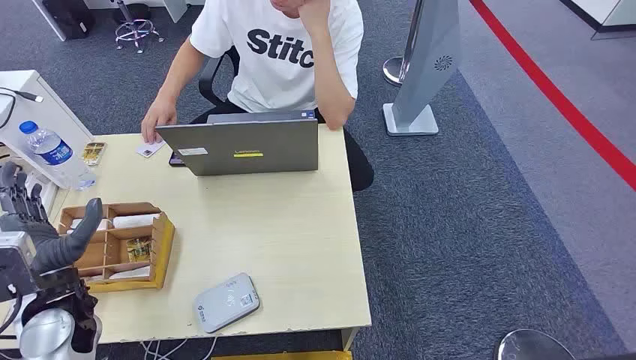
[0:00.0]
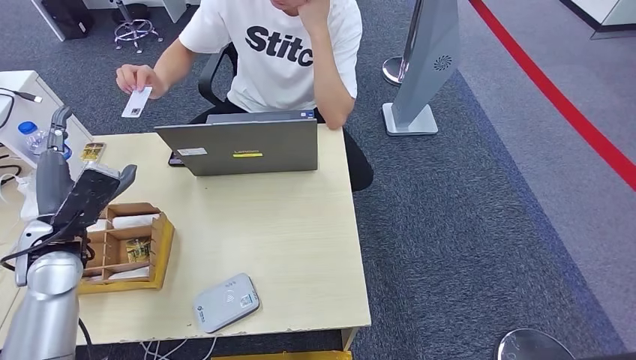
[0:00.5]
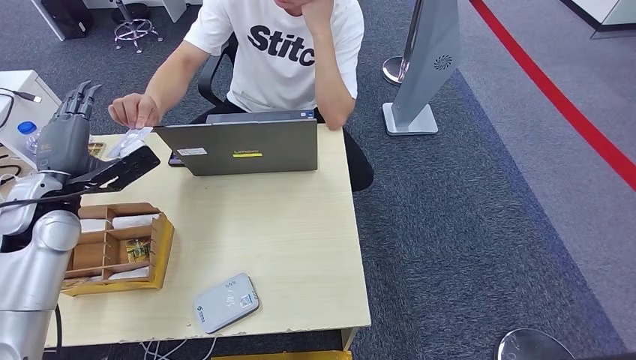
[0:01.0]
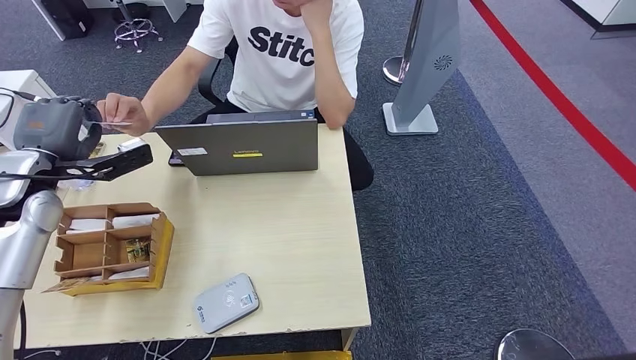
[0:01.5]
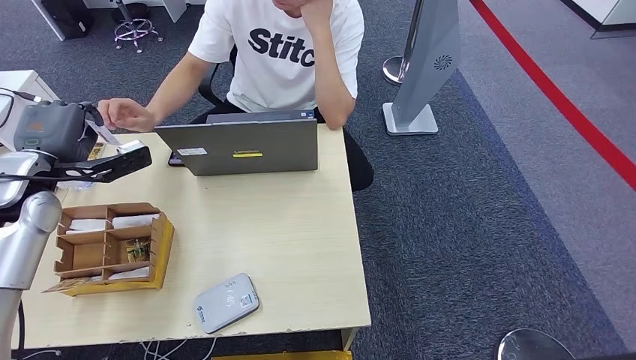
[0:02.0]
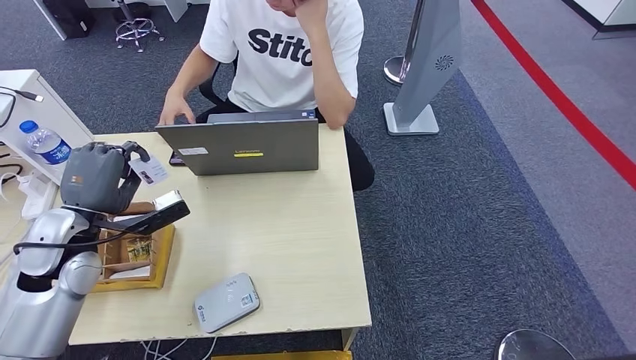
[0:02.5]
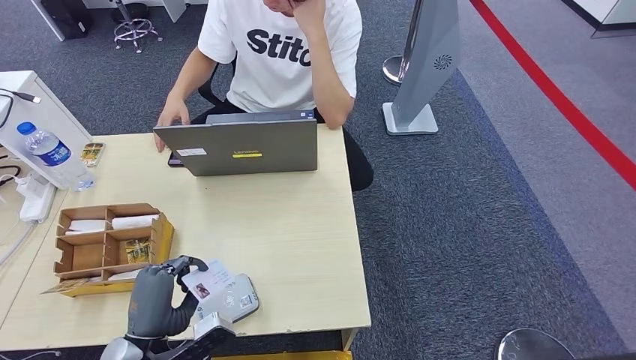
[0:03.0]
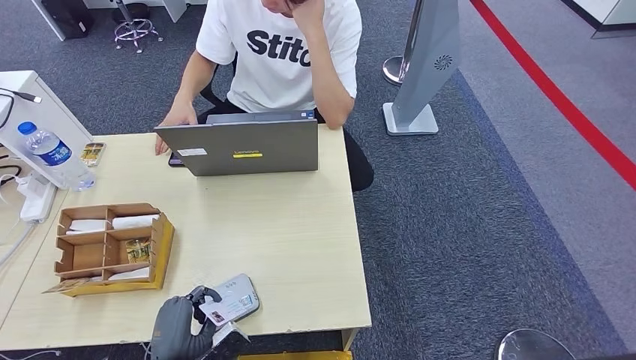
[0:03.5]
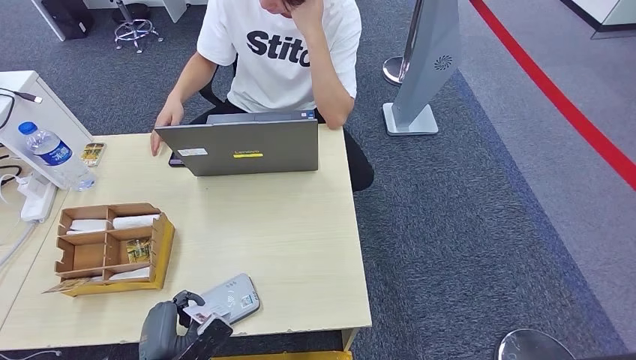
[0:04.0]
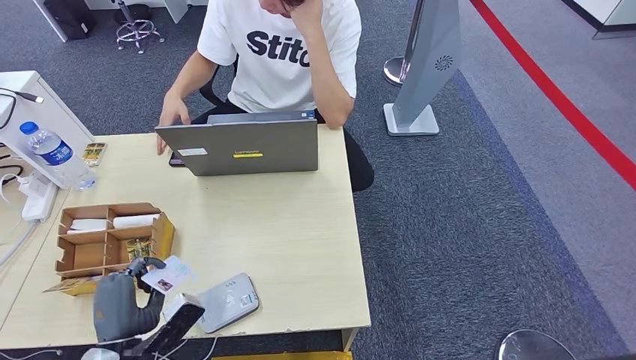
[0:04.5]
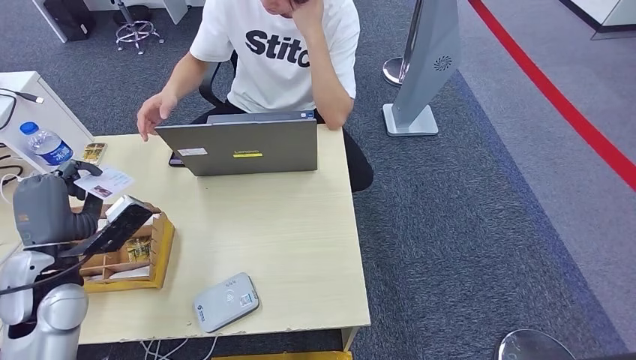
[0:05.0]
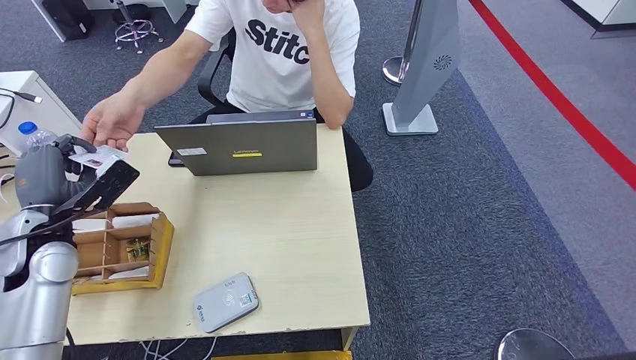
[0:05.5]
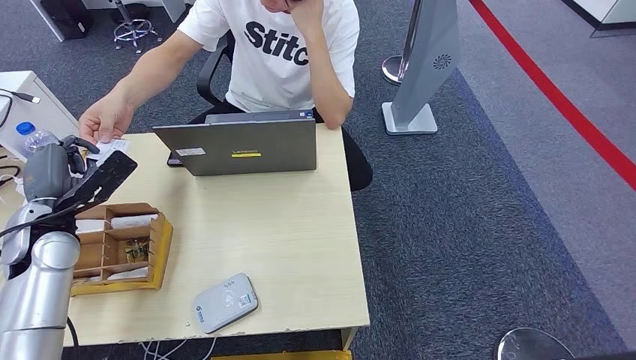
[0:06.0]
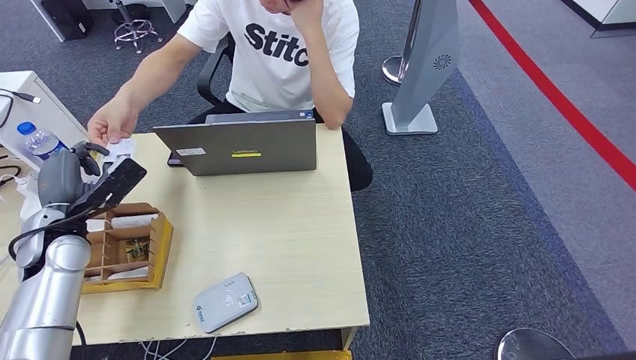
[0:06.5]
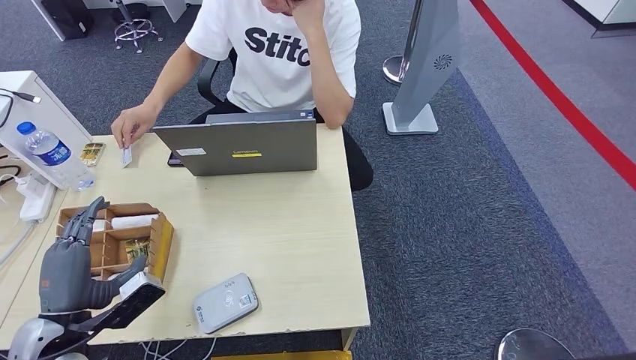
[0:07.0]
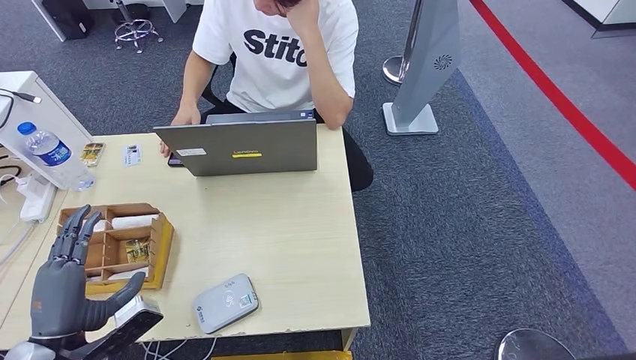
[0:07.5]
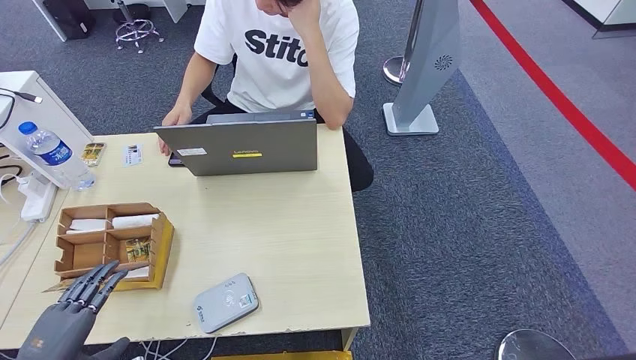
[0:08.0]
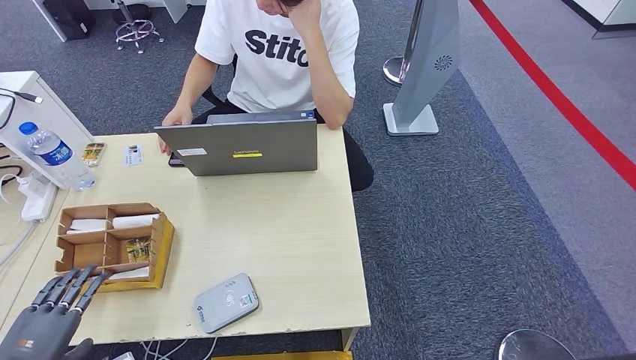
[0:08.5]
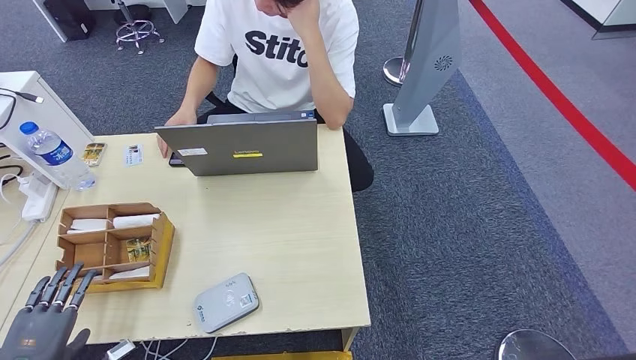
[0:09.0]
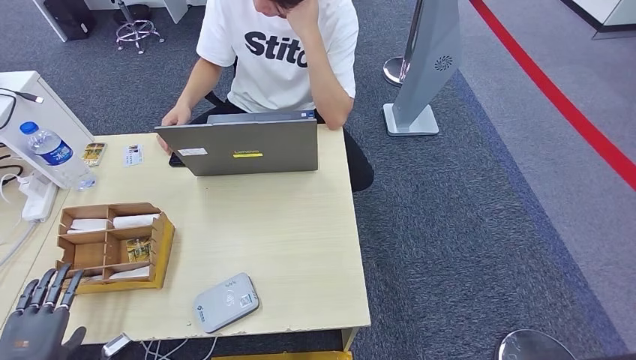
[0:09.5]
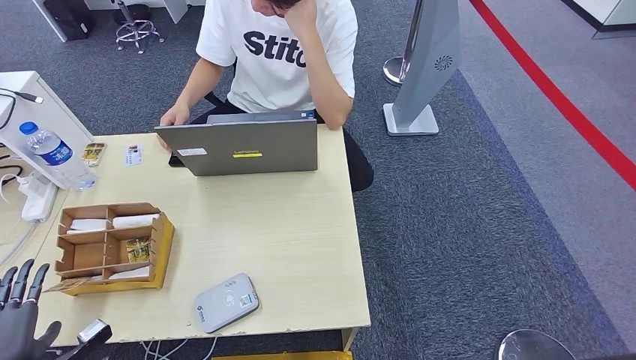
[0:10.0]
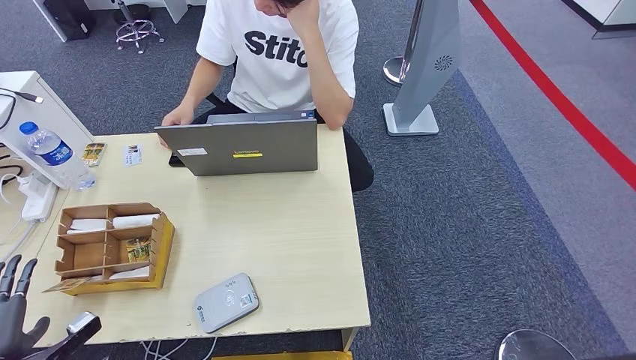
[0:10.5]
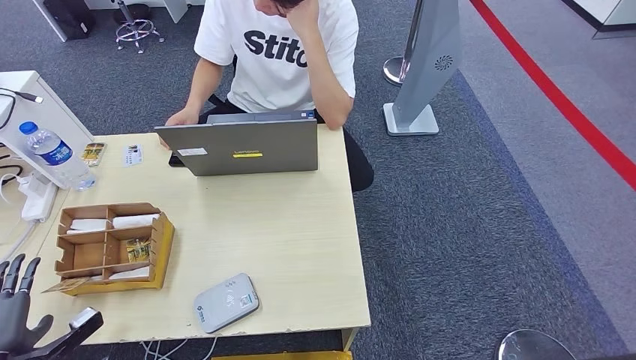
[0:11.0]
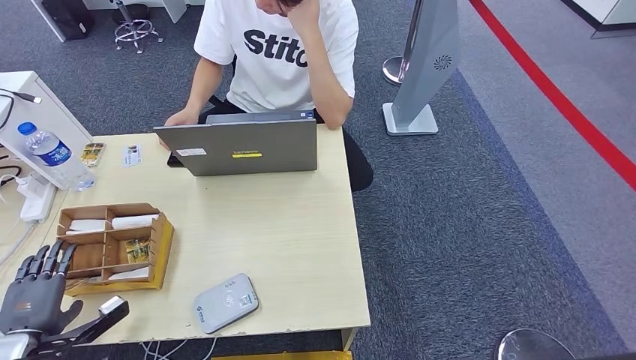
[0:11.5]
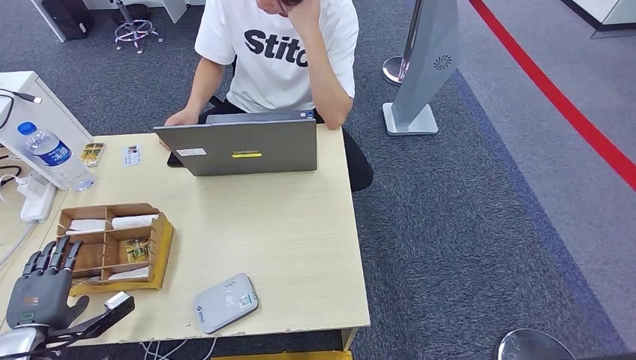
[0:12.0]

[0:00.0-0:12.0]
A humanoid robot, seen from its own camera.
Step, 0:00.0 to 0:02.5: Take the ID card from the person's hand.
Step, 0:03.0 to 0:05.0: Place the ID card on the card reader.
Step, 0:05.5 to 0:07.0: Hand the ID card to the person.
0:02.0 to 0:04.0: The left hand heads backward, downward and to the right, covering roughly 40 cm.
0:04.0 to 0:06.0: The left hand goes some 30 cm forward, upward and to the left.
0:06.0 to 0:08.0: The left hand is displaced backward by approximately 25 cm.
0:08.0 to 0:10.0: The left hand shifts some 10 cm to the left and downward.
0:10.0 to 0:12.0: The left hand heads forward, covering roughly 5 cm.

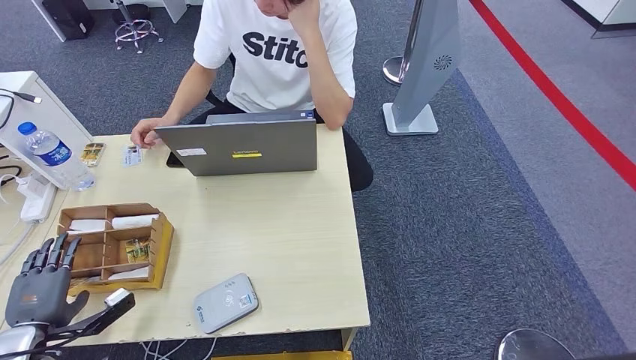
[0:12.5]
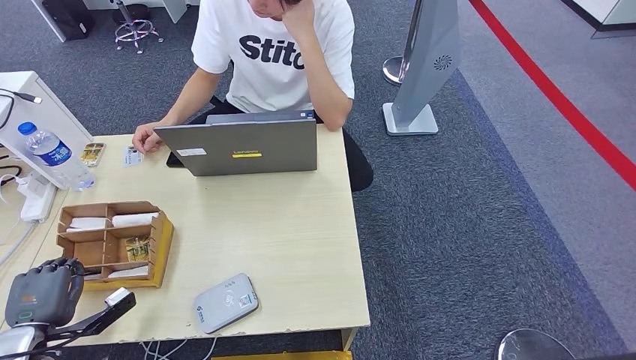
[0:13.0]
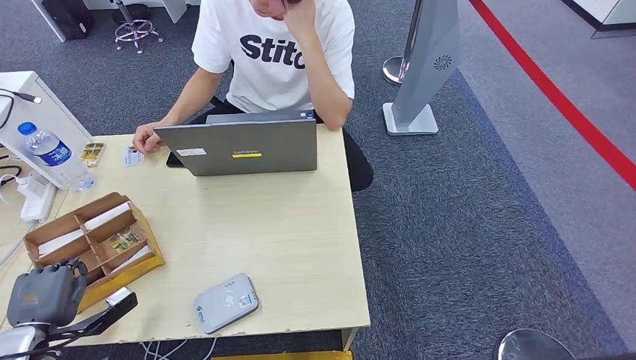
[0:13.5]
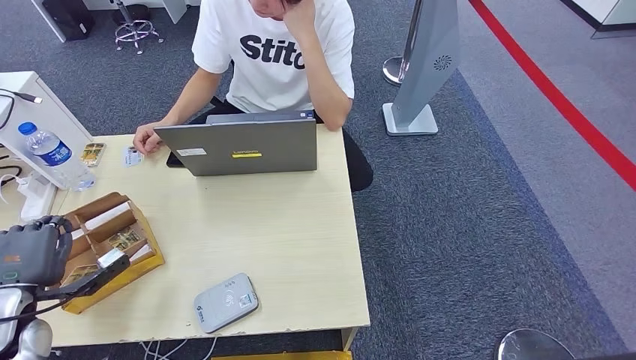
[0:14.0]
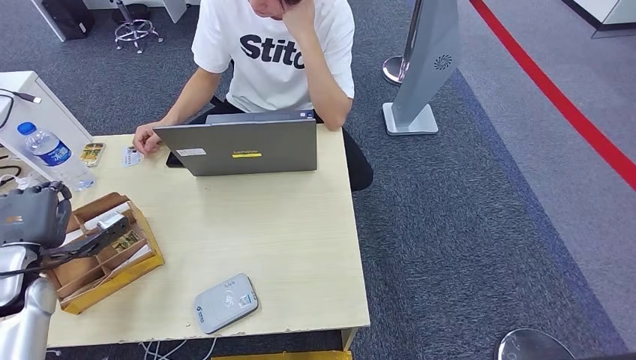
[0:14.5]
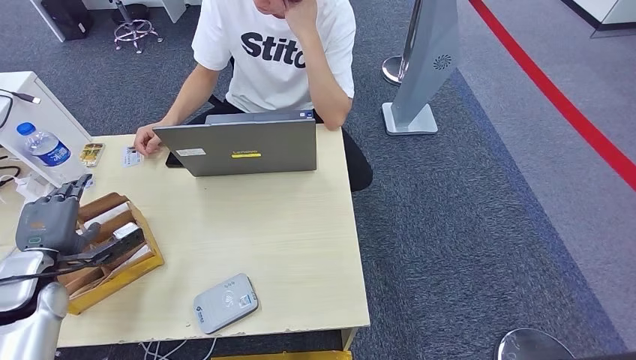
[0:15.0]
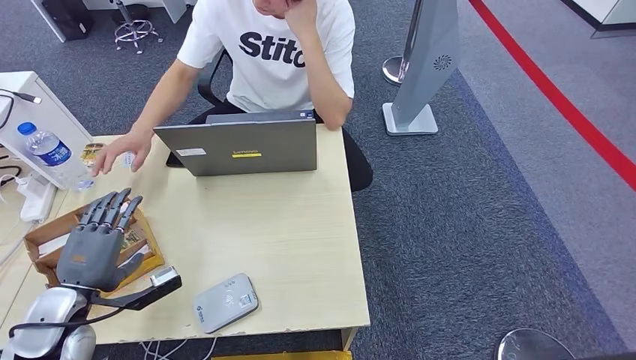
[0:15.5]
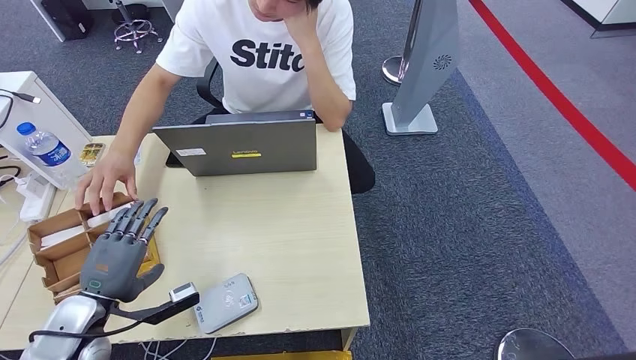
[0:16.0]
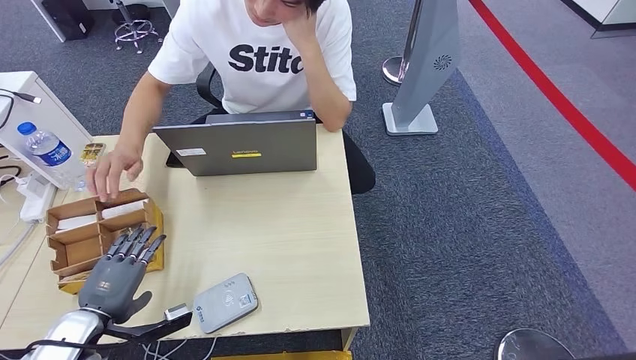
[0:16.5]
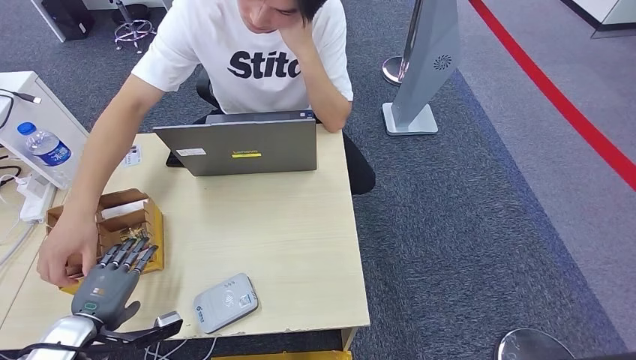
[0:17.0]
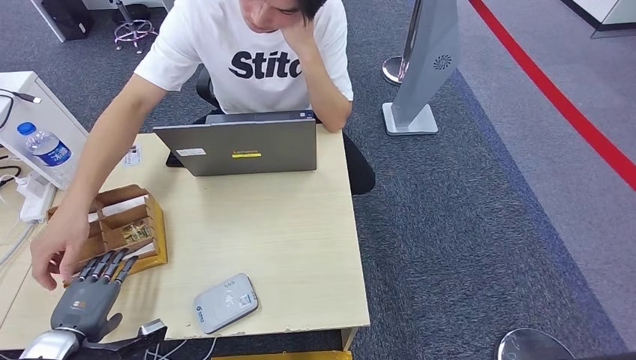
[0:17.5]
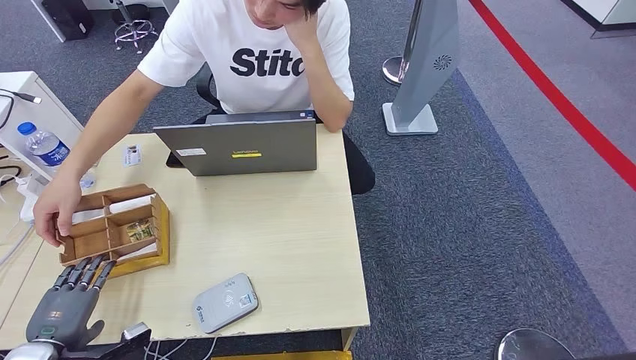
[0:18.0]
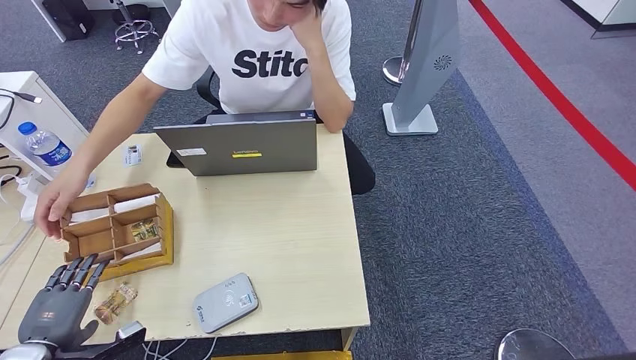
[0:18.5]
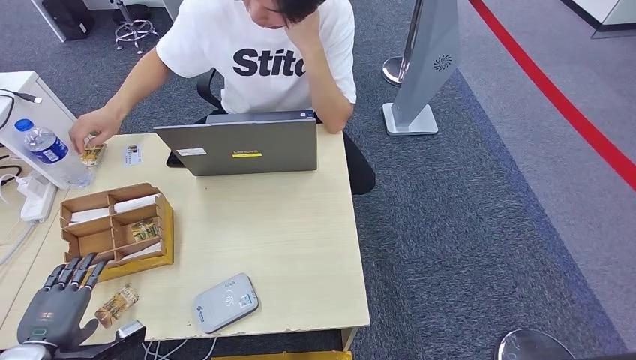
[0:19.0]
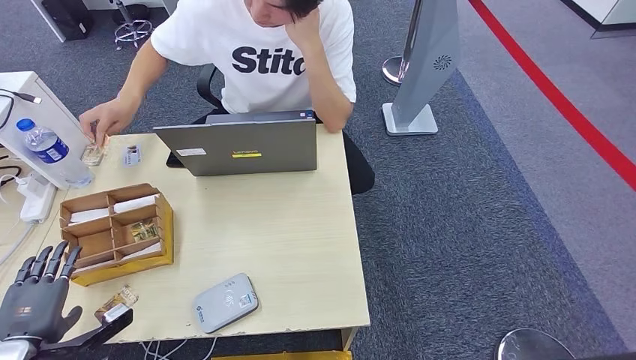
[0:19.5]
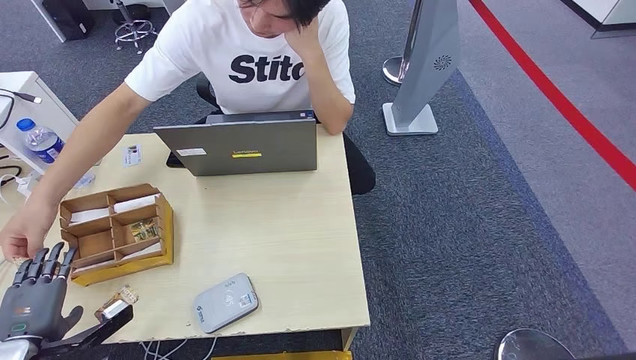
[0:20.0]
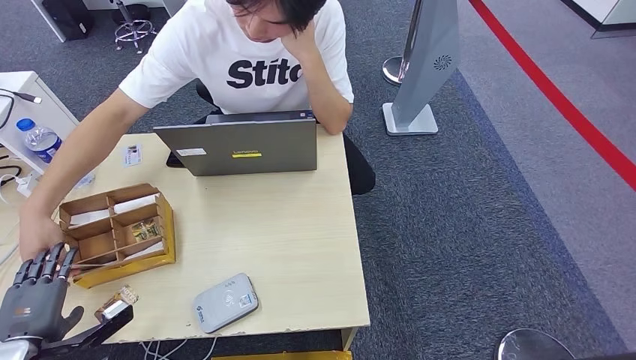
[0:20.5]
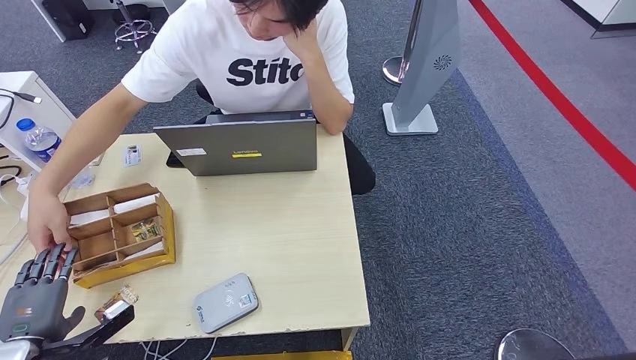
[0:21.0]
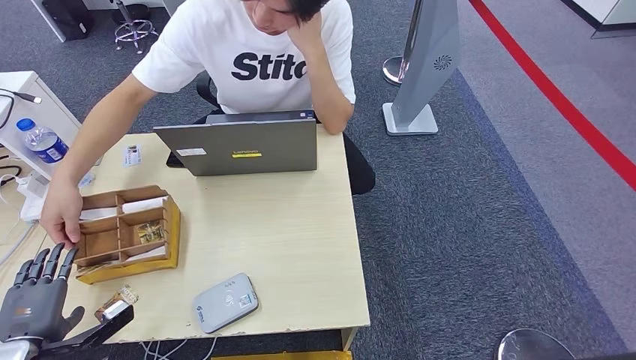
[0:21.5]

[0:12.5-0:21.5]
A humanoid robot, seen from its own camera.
0:12.5 to 0:14.5: The left hand travels upward and forward by some 15 cm.
0:14.5 to 0:17.0: The left hand goes some 15 cm backward, downward and to the right.
0:17.0 to 0:19.5: The left hand heads to the left, covering about 5 cm.
0:19.5 to 0:21.5: Both hands stay put.
